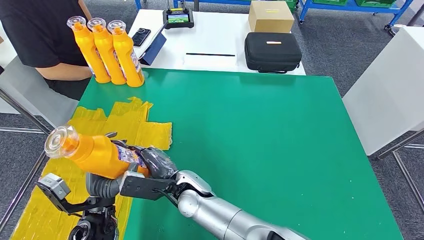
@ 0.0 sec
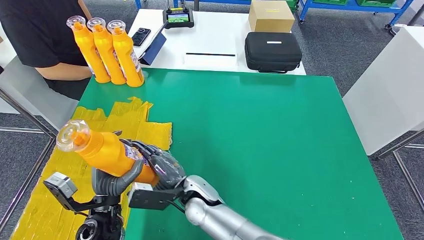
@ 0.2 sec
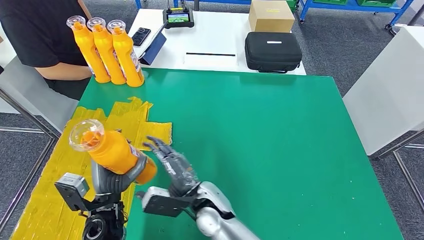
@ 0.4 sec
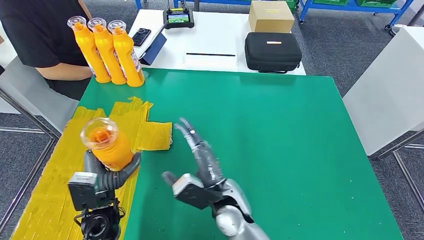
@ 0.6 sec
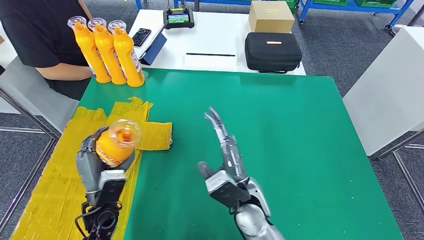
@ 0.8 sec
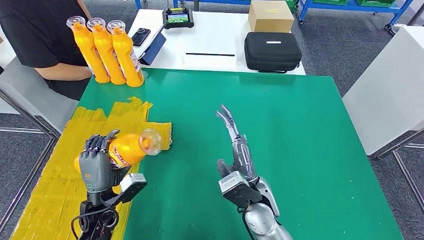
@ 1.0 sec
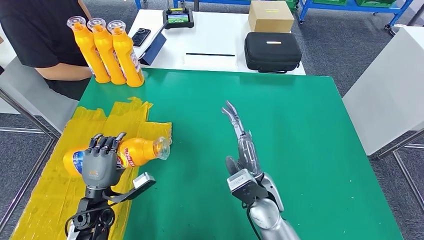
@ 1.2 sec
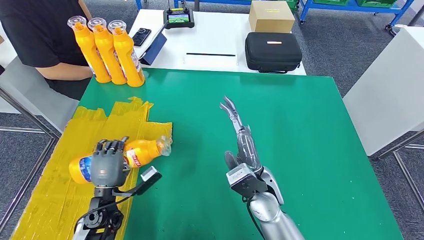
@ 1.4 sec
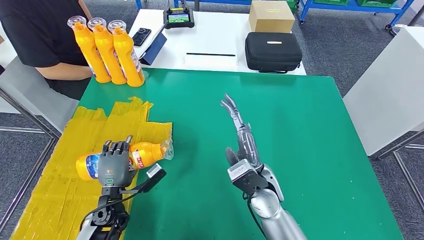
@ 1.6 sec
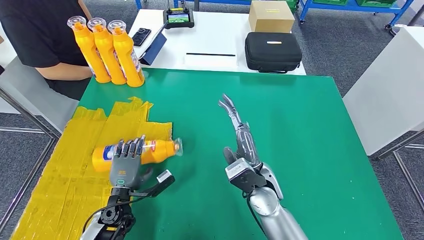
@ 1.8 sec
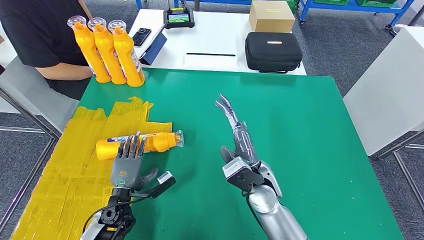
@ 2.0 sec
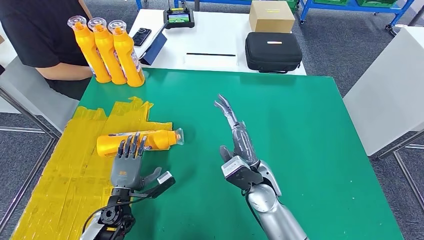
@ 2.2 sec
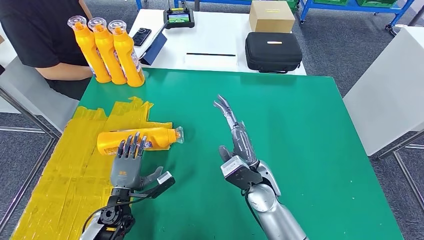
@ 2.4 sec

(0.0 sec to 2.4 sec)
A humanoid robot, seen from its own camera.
Step, 0.0 sec - 2.4 sec: Flip the bottle to face forward.
0.0 sec - 1.2 sec: The left hand changes place by approximately 5 cm; the right hand travels to the right by some 15 cm.
1.2 sec - 2.4 sec: The left hand shifts by some 5 cm.
